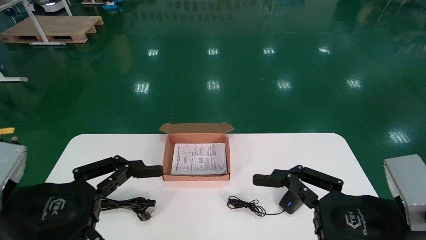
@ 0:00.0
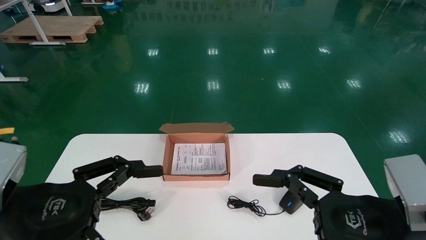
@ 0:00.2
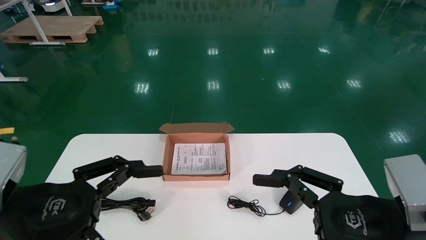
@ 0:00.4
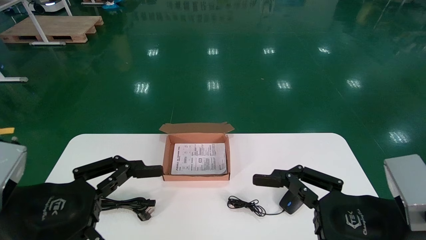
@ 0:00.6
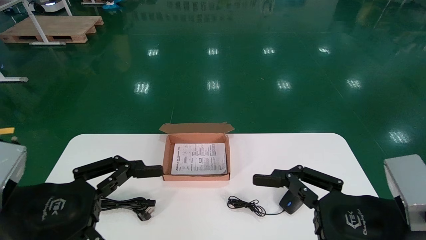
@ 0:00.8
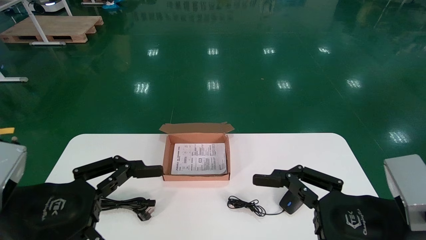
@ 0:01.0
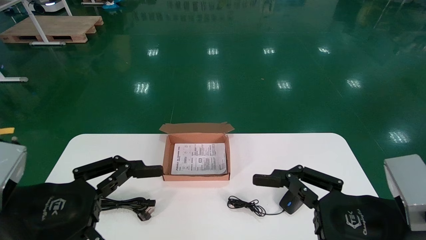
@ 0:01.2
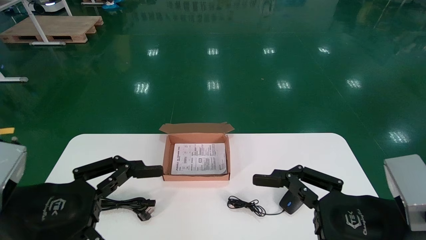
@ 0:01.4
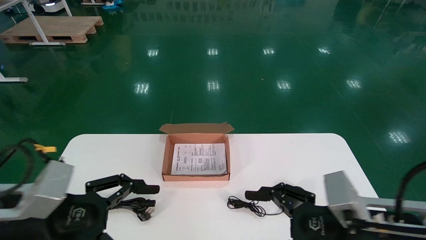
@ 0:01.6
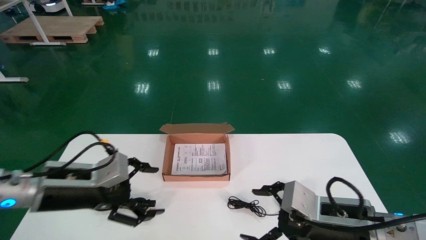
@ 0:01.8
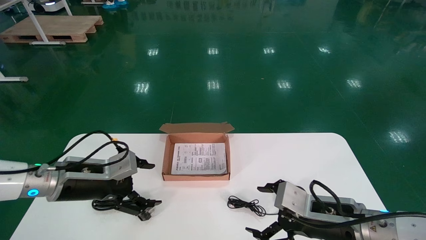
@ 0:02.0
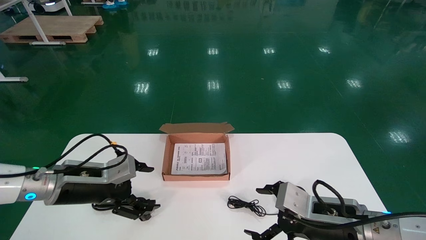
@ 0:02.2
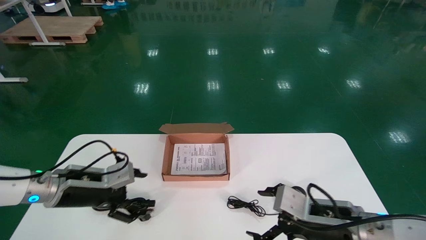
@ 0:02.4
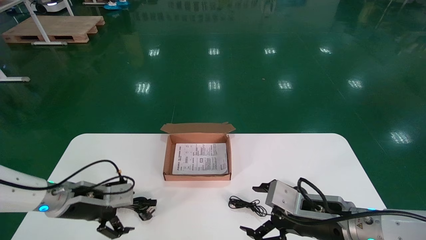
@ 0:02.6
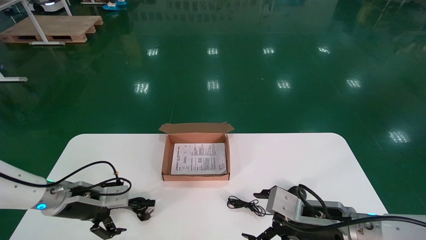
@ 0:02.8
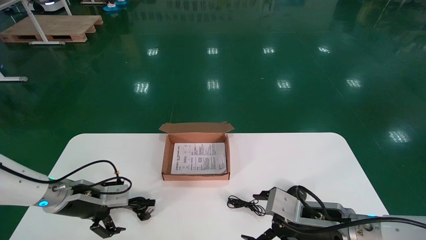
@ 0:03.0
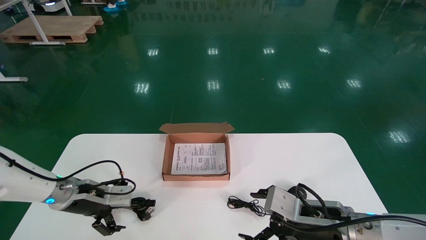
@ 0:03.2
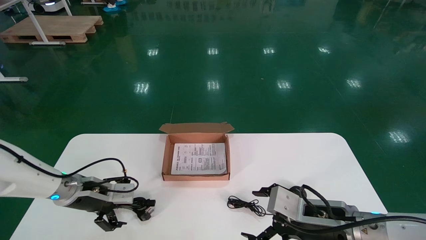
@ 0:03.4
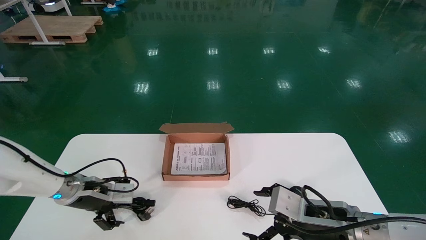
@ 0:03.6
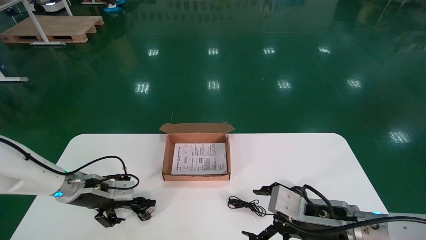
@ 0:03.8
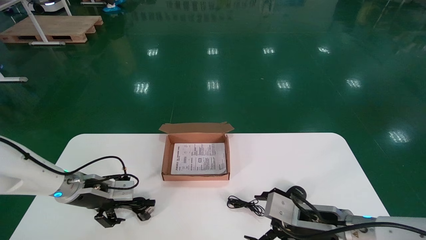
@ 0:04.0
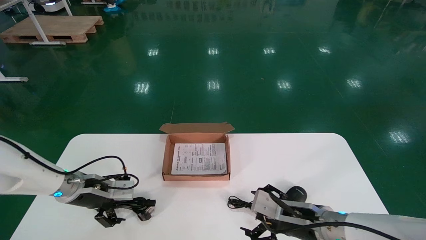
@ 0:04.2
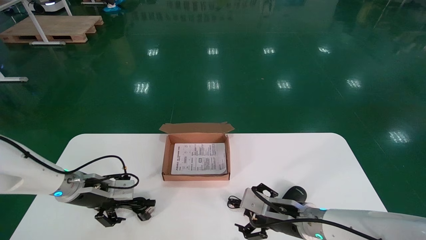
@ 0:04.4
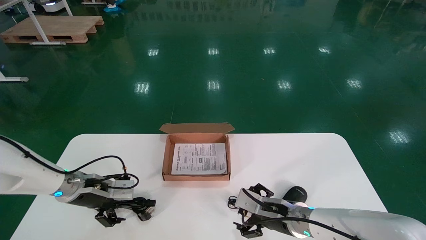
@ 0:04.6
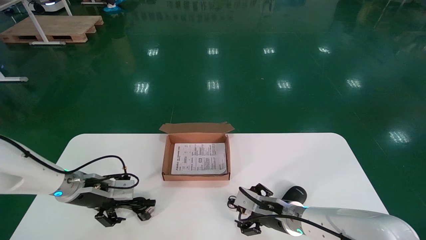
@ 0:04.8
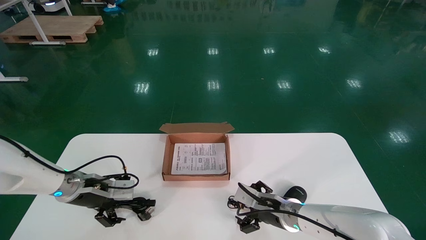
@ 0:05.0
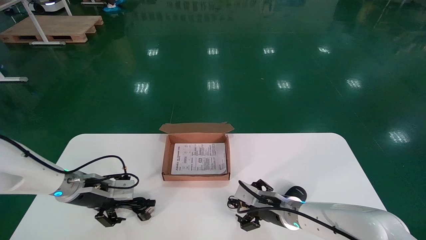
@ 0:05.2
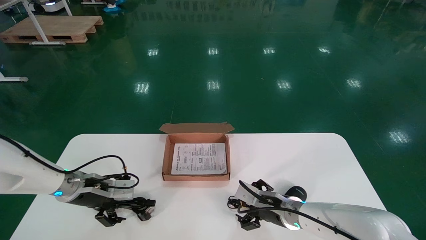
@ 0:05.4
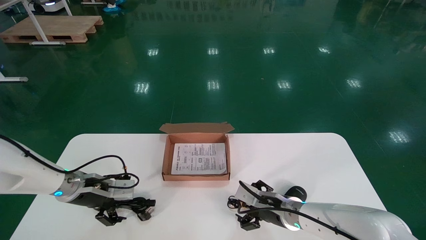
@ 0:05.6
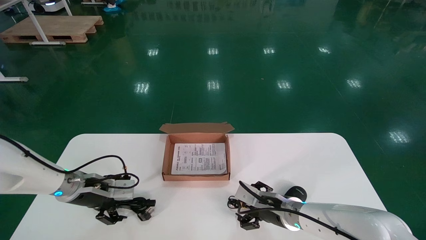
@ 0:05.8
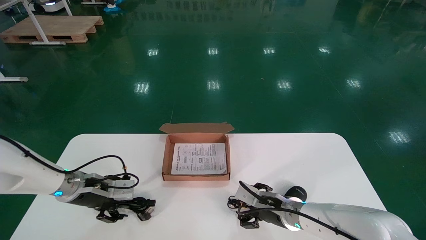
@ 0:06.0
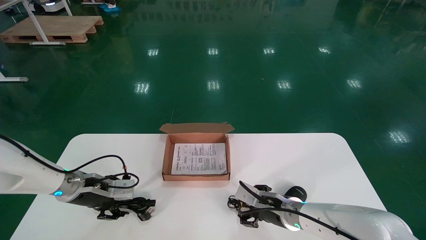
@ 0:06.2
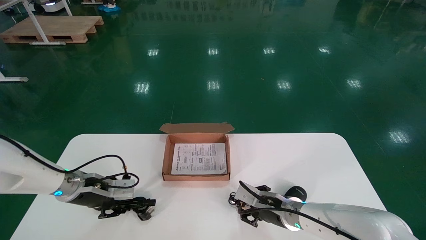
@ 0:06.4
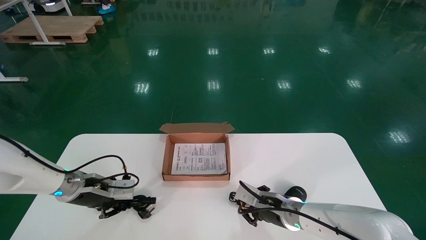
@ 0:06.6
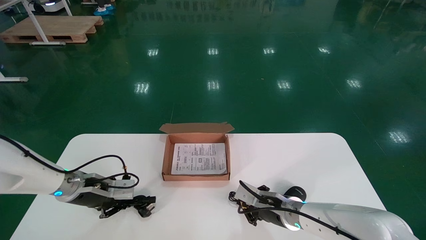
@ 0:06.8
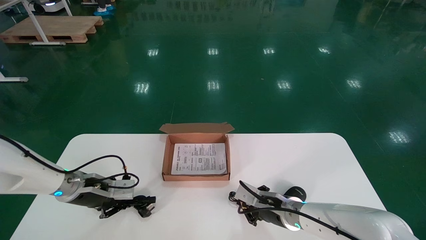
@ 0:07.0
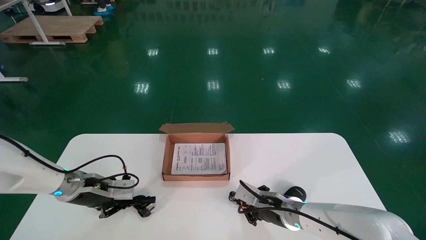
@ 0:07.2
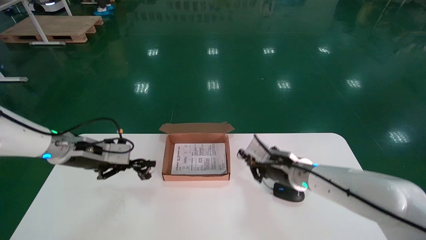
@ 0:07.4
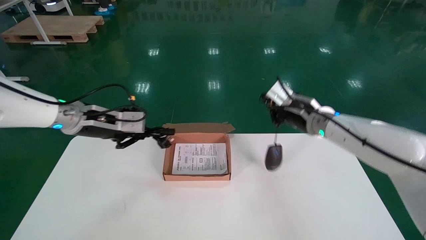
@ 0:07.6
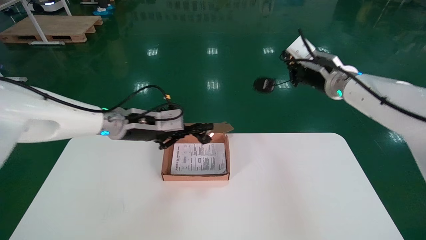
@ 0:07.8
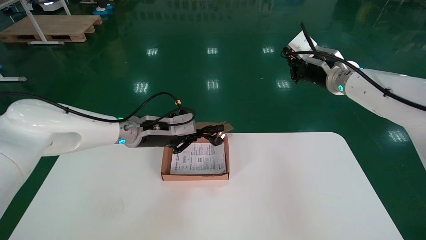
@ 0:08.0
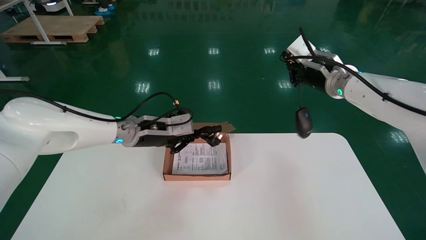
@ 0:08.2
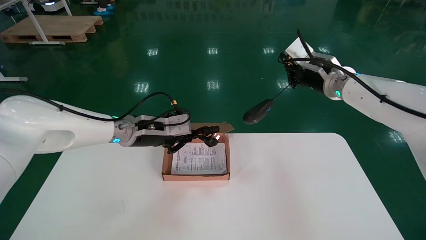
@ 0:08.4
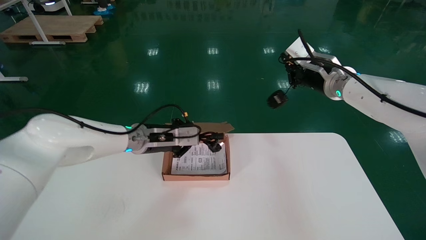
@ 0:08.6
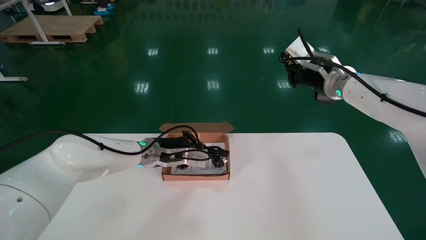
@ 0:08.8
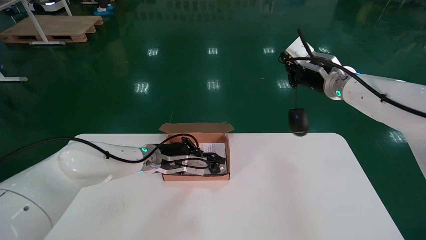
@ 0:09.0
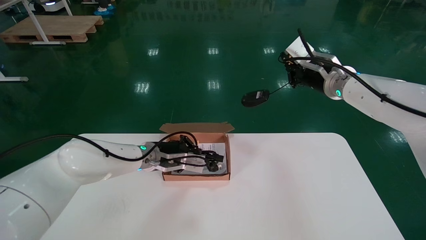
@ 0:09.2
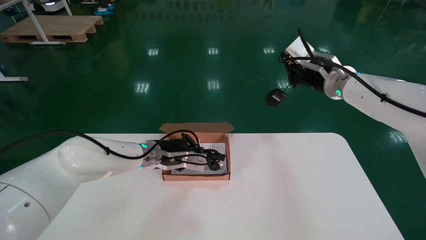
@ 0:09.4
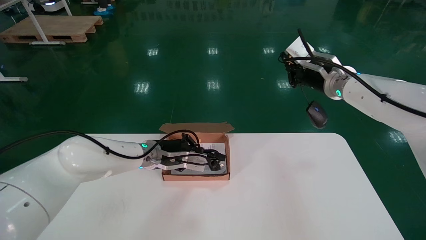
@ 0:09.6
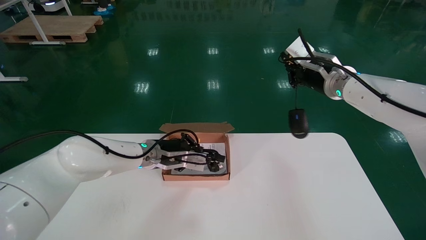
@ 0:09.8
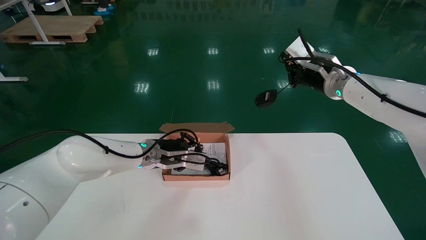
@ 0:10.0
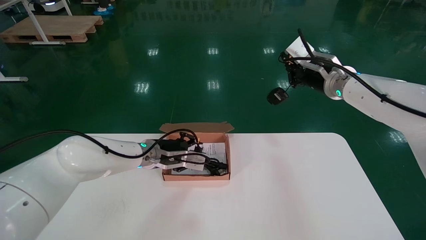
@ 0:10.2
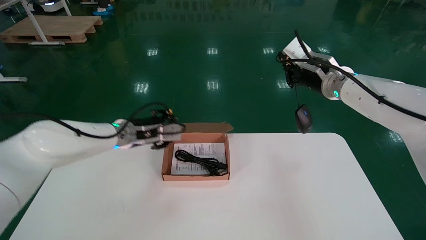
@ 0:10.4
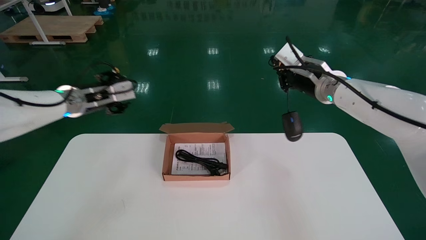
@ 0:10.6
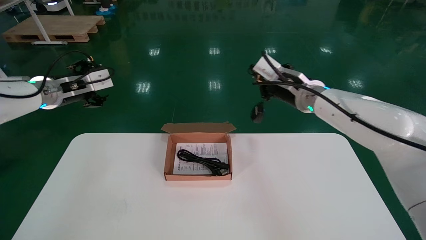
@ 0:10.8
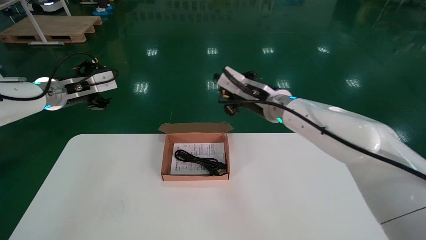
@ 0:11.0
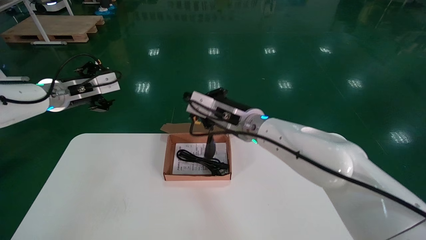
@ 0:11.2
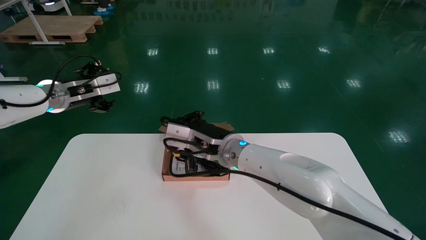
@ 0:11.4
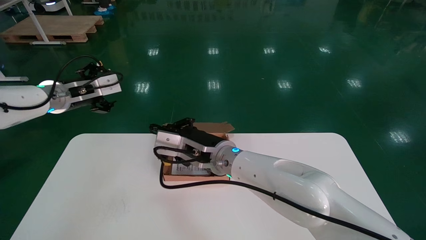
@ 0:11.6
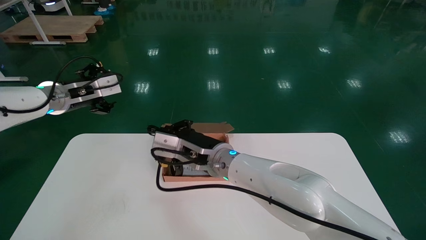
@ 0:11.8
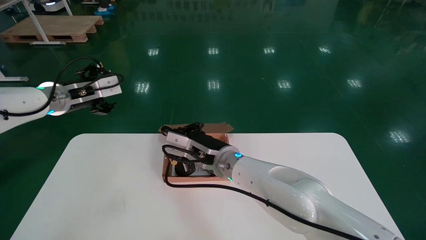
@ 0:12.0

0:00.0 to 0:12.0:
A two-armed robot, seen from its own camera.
Step, 0:01.8 to 0:06.6: Simultaneously pick up the mouse and power cord from the accessory packaging area.
0:00.0 to 0:01.6: Both grippers move forward, roughly 5 cm.
0:01.6 to 0:03.0: The right gripper is displaced forward by roughly 5 cm; the left gripper shifts approximately 15 cm forward.
0:03.0 to 0:04.4: The right gripper heads forward, covering about 5 cm.
0:04.4 to 0:06.0: The right gripper ends up some 5 cm from where it was.
0:06.0 to 0:07.6: The right gripper moves upward, some 20 cm, and closes its fingers. Meanwhile the left gripper heads upward and to the right, covering about 15 cm, and closes.
0:07.6 to 0:09.0: The right gripper travels upward by about 10 cm; the left gripper heads to the right and downward, covering some 15 cm.
0:09.0 to 0:10.4: The left gripper moves to the left and upward, some 10 cm, and opens.
0:10.4 to 0:12.0: The right gripper heads to the left and downward, covering about 30 cm, while the left gripper is displaced to the left and upward by approximately 15 cm, and opens up.

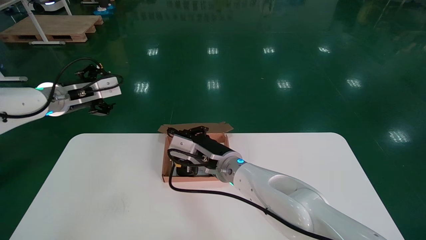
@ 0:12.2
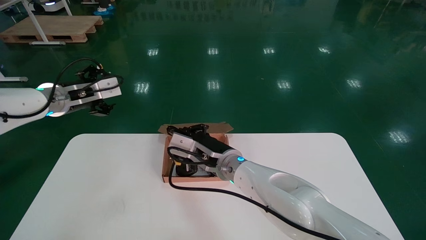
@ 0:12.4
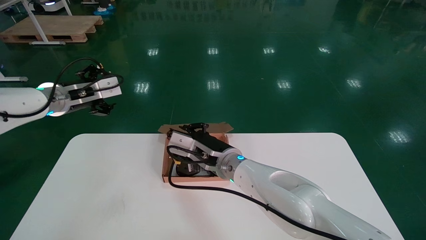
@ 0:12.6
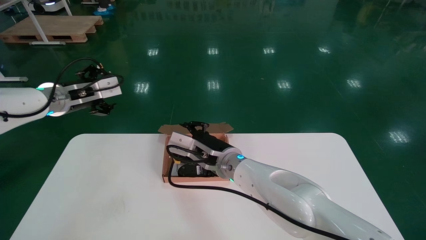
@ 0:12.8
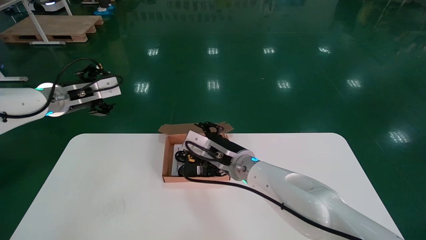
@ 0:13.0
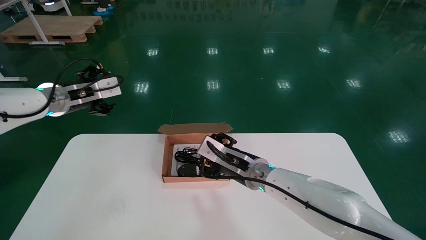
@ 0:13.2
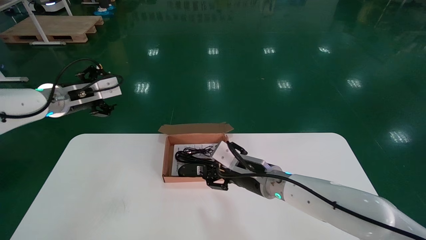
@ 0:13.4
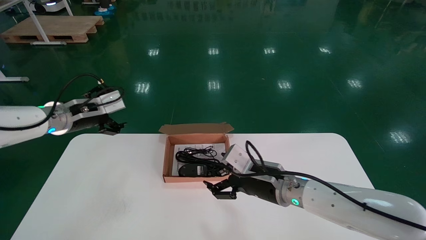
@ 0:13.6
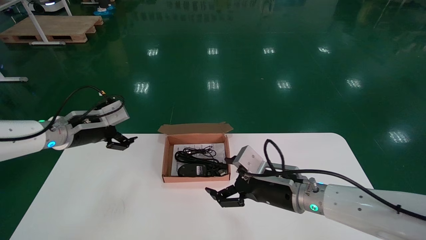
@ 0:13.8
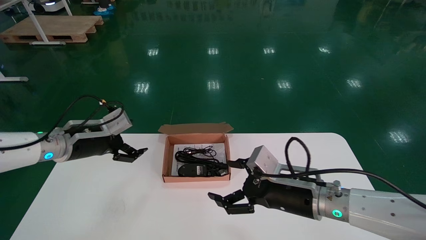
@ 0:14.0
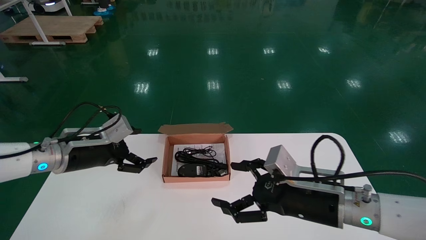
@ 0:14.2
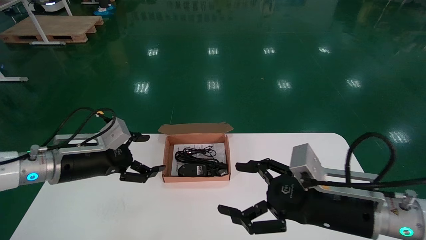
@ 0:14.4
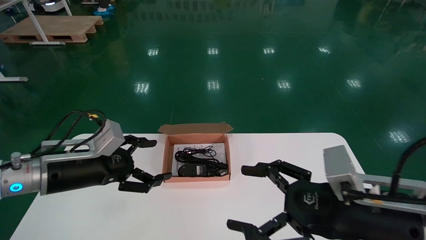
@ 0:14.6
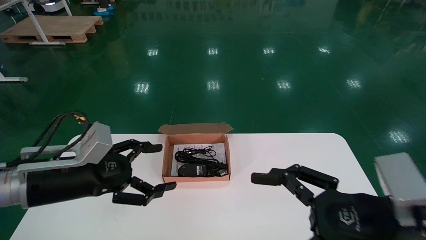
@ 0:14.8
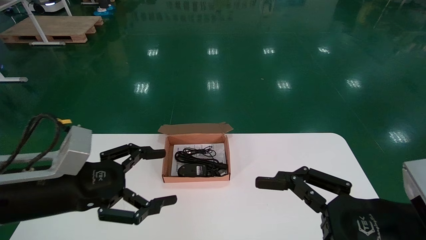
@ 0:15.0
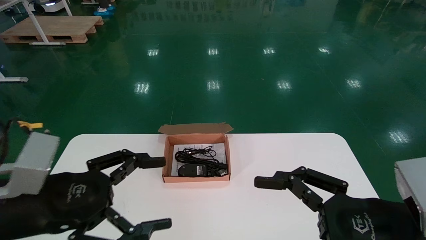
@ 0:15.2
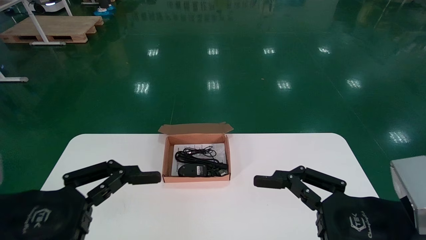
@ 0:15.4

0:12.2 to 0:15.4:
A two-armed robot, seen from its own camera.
0:12.2 to 0:13.8: The right gripper shifts about 15 cm to the right and backward, and opens up. Meanwhile the left gripper heads downward, covering about 5 cm.
0:13.8 to 0:15.4: The right gripper shifts about 20 cm backward and to the right. Meanwhile the left gripper moves backward, some 25 cm.
